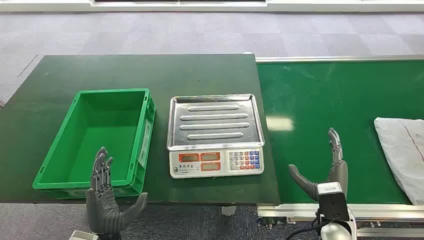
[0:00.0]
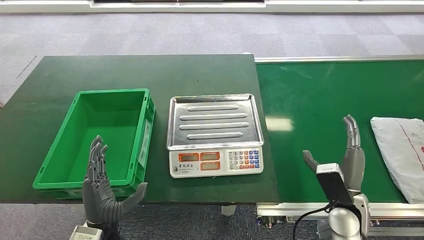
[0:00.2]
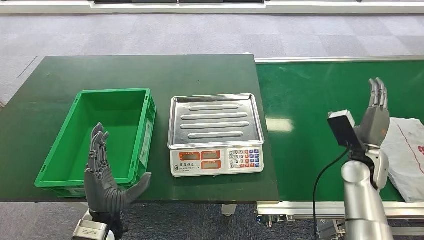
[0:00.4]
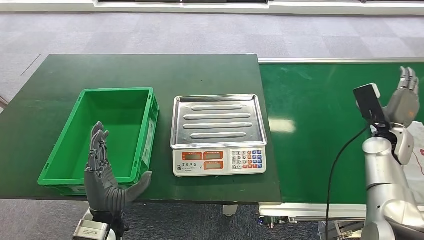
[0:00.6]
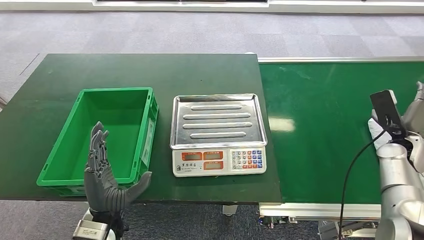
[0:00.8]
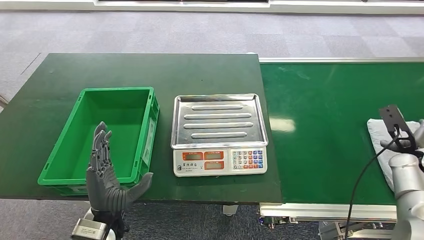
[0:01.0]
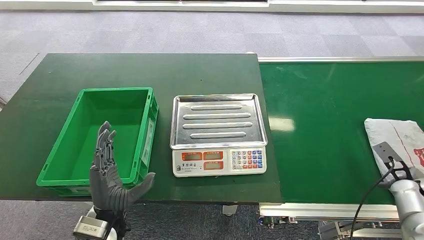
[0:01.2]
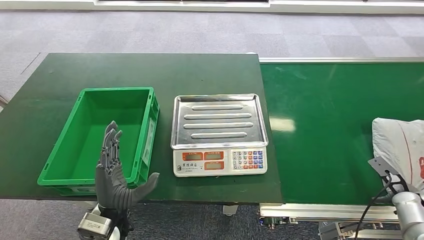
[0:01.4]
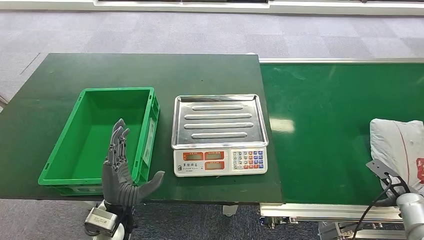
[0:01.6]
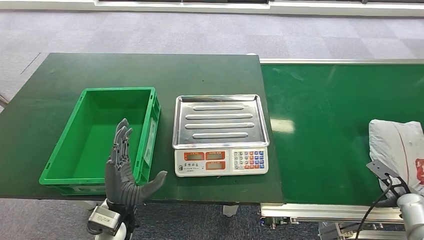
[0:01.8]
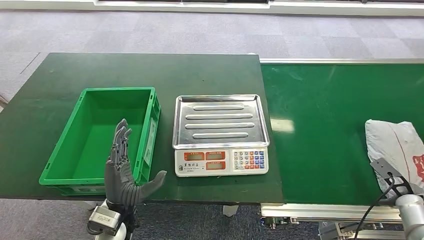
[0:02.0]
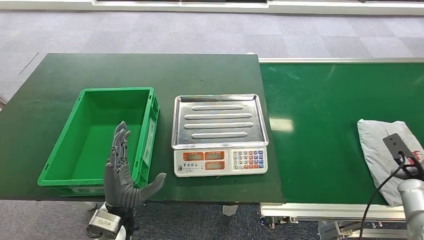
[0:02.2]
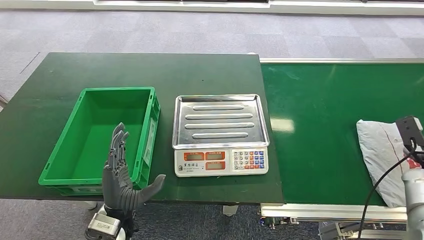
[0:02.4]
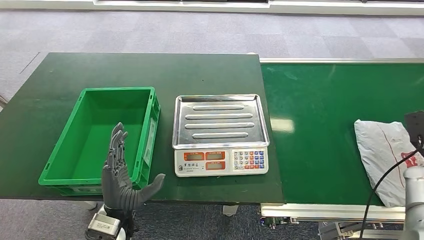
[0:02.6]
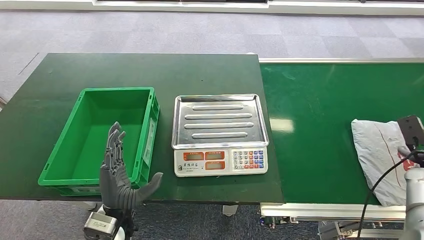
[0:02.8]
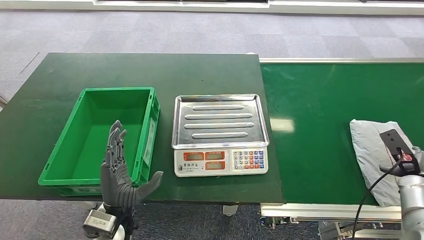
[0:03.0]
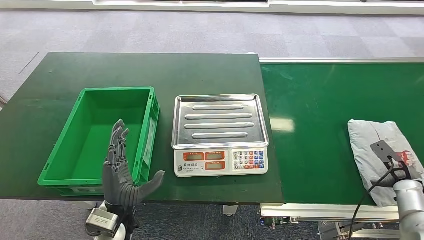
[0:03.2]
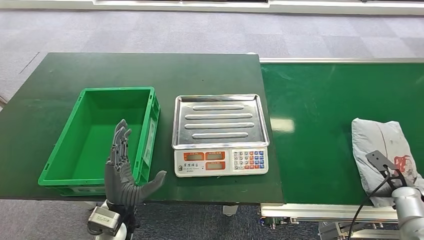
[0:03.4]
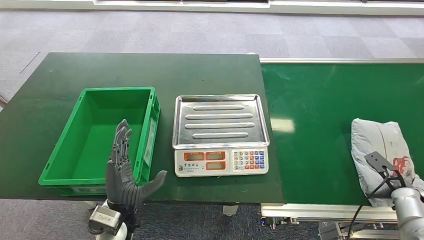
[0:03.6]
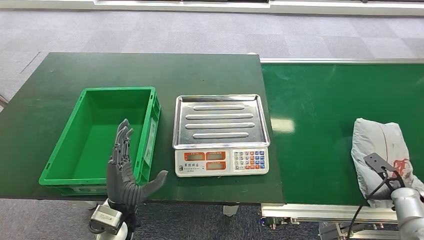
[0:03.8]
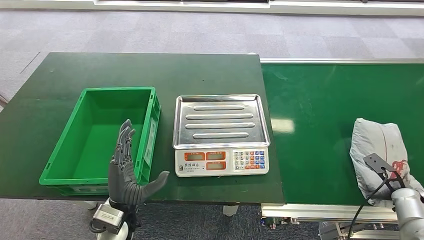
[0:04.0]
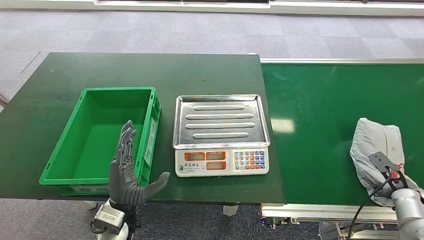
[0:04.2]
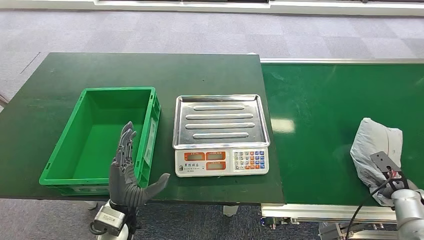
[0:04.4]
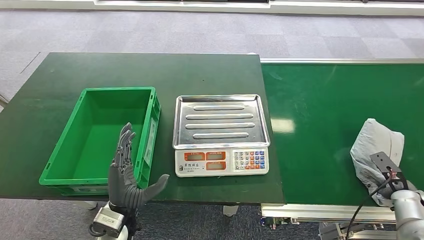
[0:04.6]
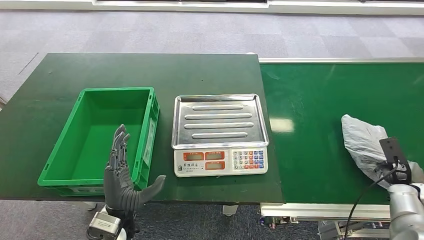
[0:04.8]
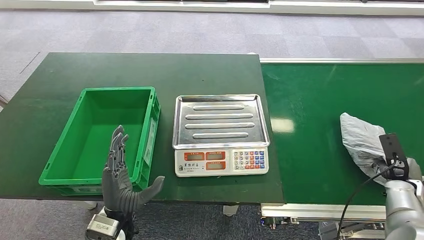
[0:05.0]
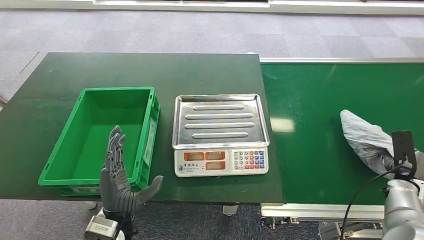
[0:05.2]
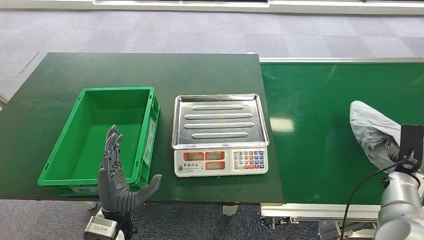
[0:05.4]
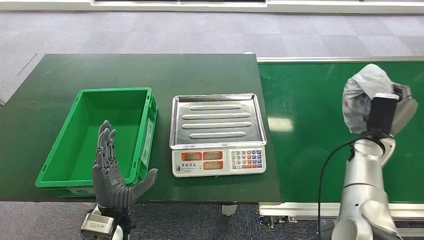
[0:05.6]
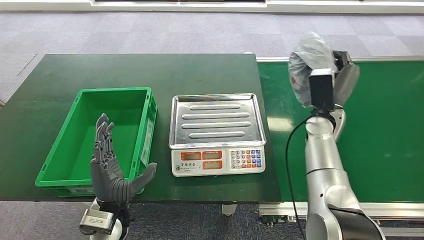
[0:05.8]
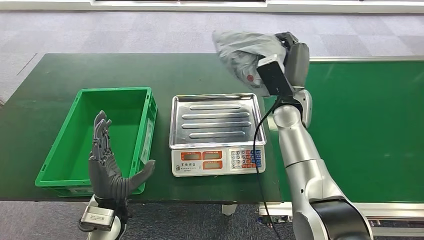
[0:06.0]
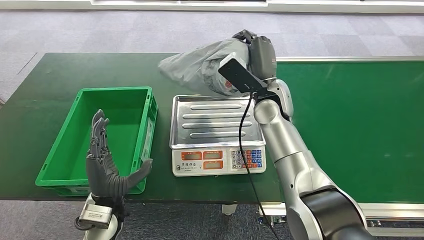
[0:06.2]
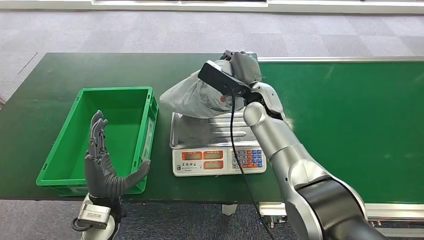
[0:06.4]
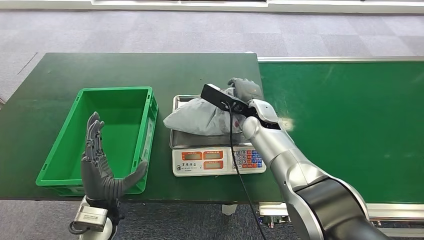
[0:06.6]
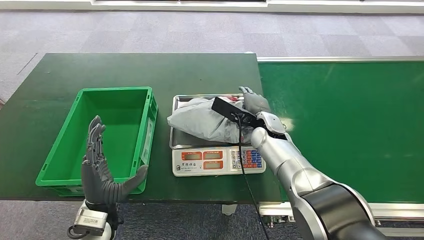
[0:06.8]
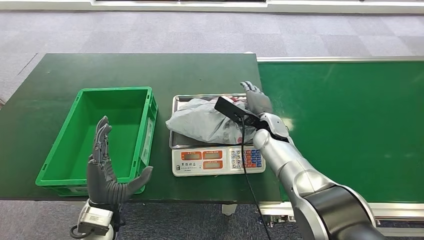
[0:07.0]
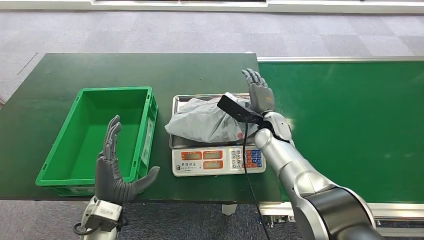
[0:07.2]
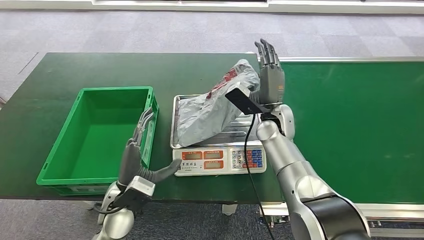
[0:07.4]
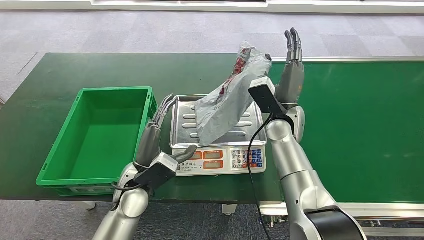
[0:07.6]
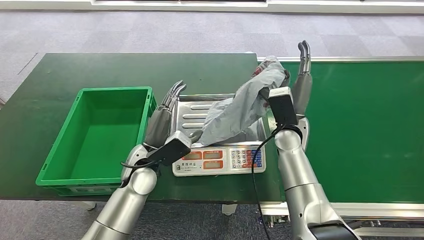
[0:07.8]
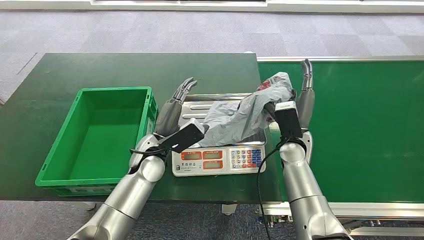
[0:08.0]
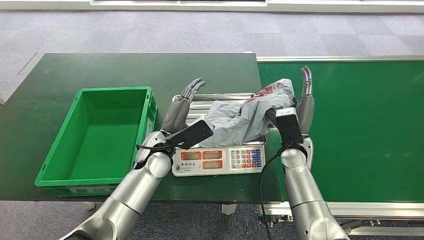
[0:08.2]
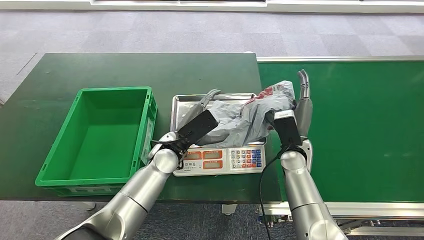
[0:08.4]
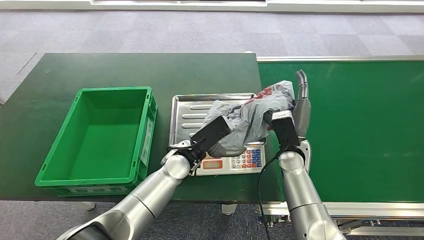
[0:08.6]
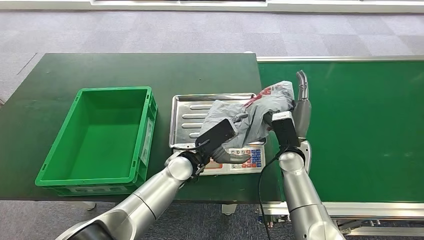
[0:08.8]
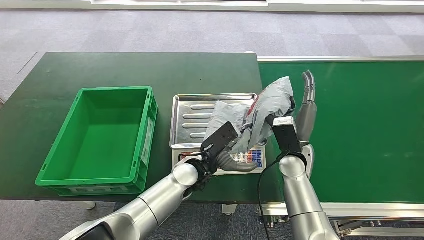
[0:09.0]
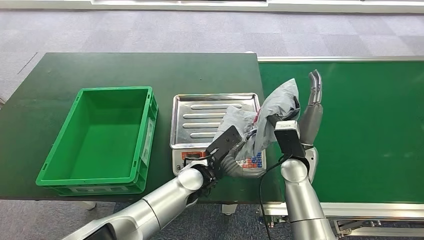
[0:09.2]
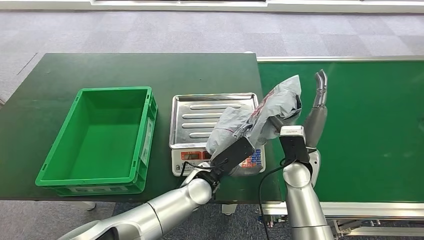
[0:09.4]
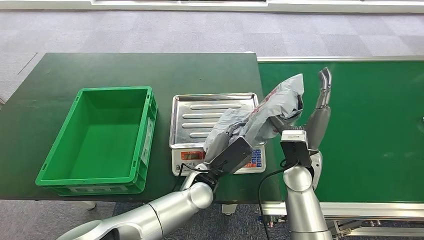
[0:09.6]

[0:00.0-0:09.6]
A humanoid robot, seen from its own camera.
Step, 0:00.0 to 0:05.8: Pick up the package from the conveyor belt.
Step, 0:06.0 to 0:08.0: Place the package onto the inbound machine.
0:01.6 to 0:03.2: The right hand travels upward and back again, some 10 cm each way.
0:03.2 to 0:04.8: The hands make only small movements.
0:08.0 to 0:09.6: The right hand heads backward, covering roughly 5 cm, while the left hand moves to the right and backward, about 10 cm.

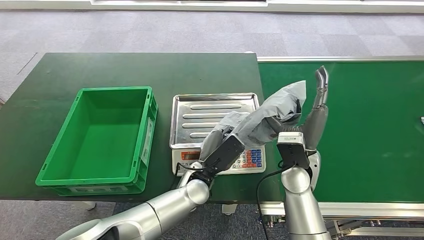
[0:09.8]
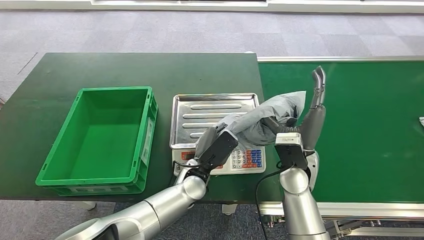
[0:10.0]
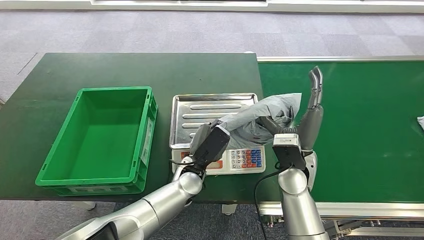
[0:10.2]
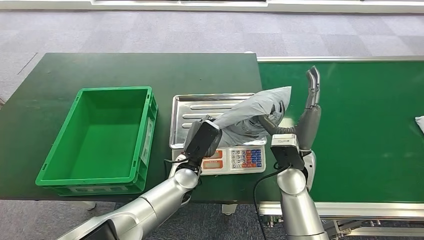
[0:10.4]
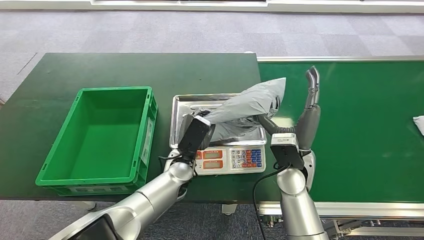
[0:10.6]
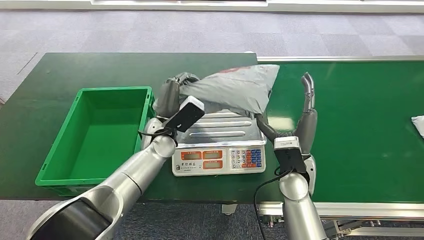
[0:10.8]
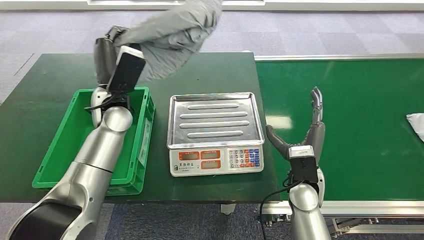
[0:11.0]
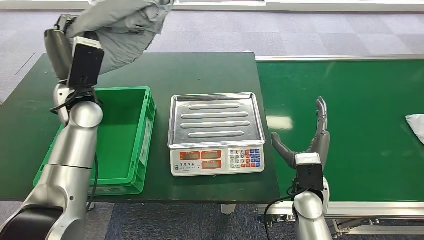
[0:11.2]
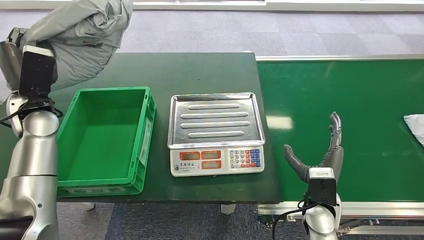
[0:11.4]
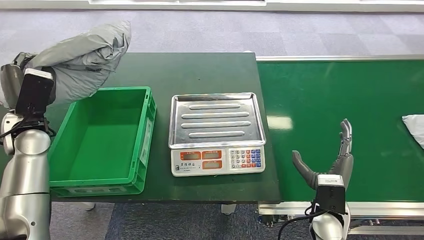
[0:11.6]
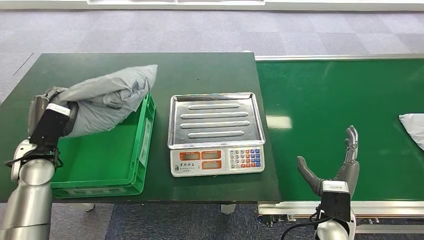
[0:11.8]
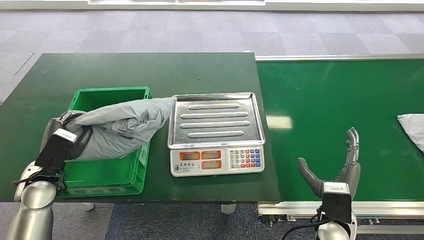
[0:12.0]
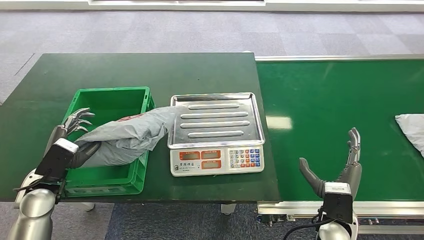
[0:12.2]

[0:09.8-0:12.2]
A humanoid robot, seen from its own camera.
Step, 0:11.6 to 0:12.2: Place the package into the parcel locker.
